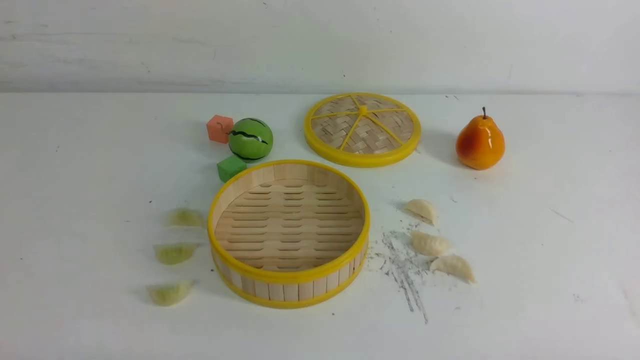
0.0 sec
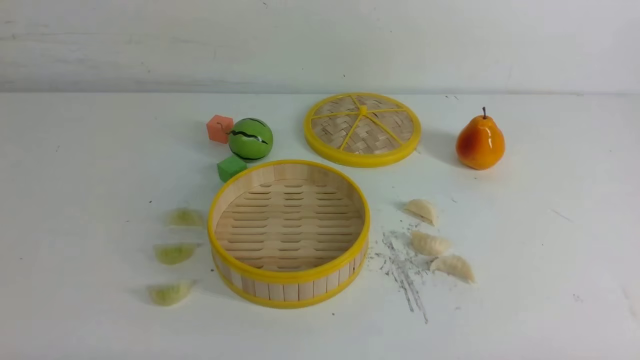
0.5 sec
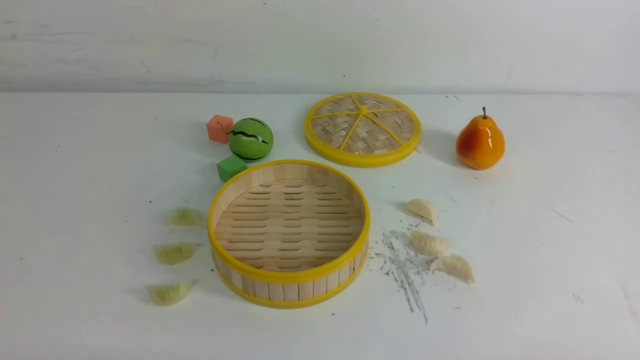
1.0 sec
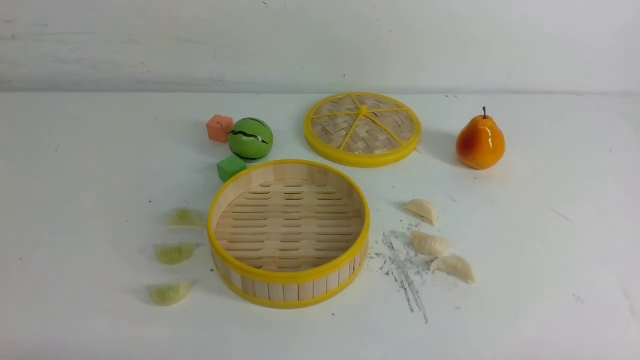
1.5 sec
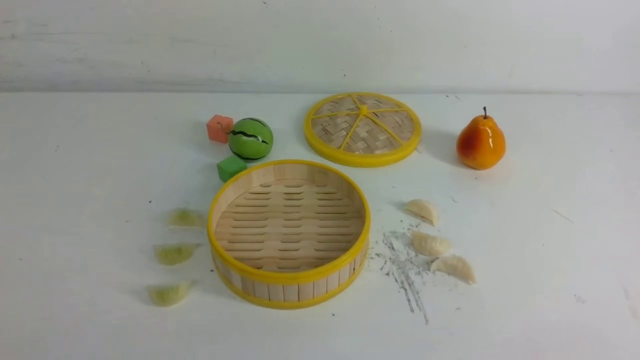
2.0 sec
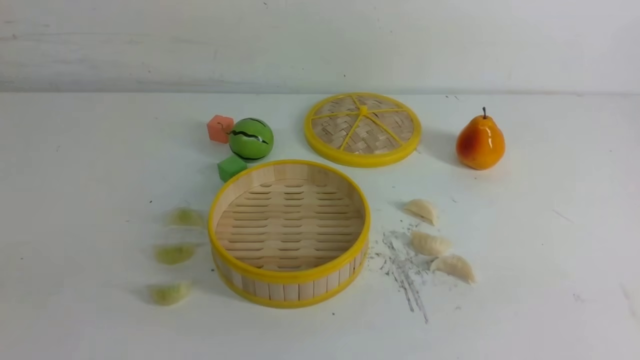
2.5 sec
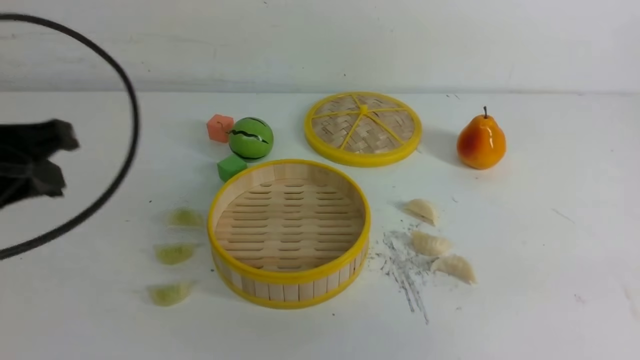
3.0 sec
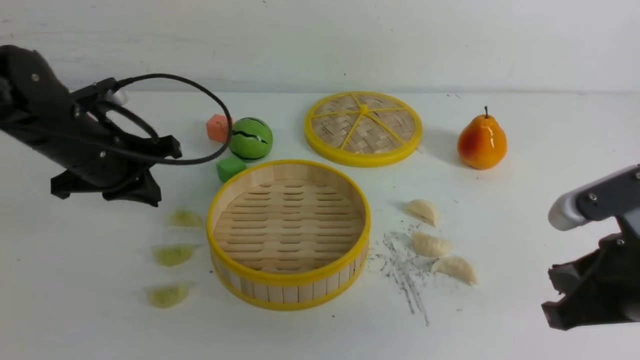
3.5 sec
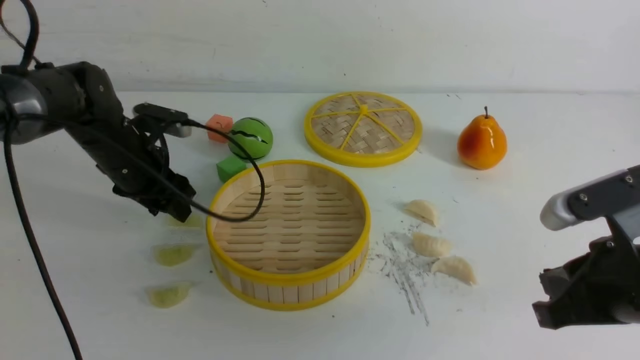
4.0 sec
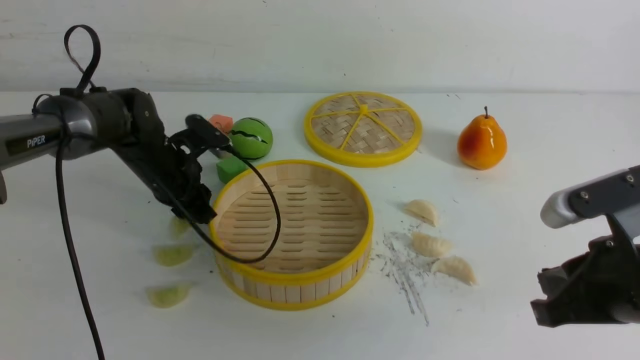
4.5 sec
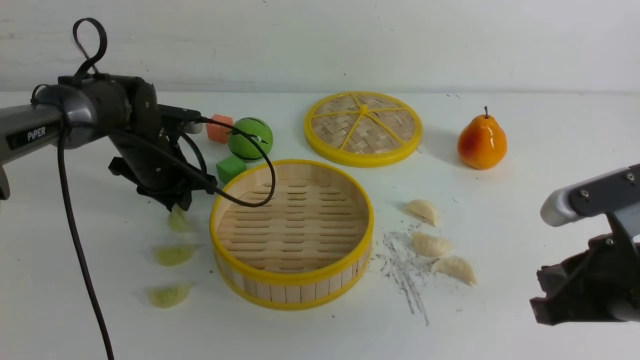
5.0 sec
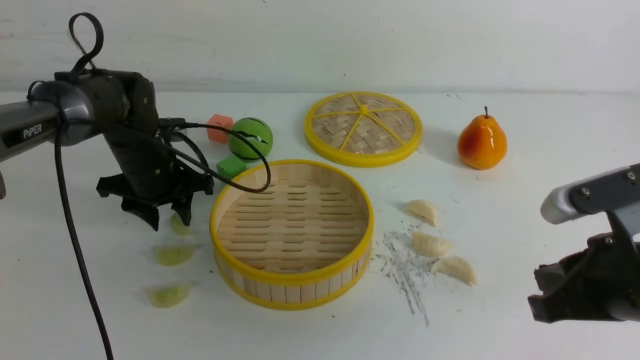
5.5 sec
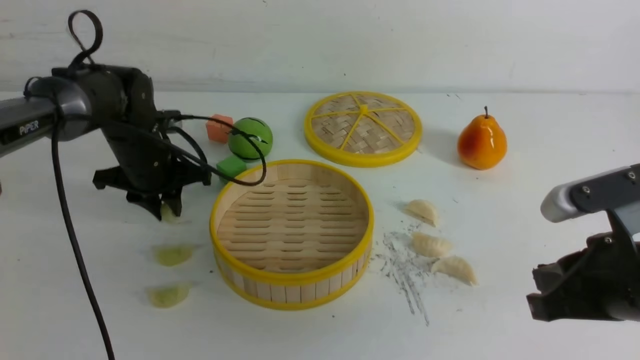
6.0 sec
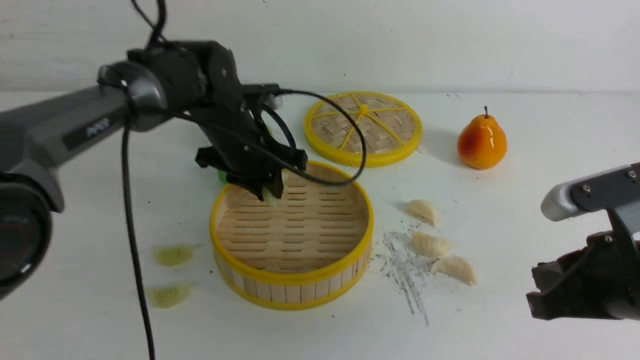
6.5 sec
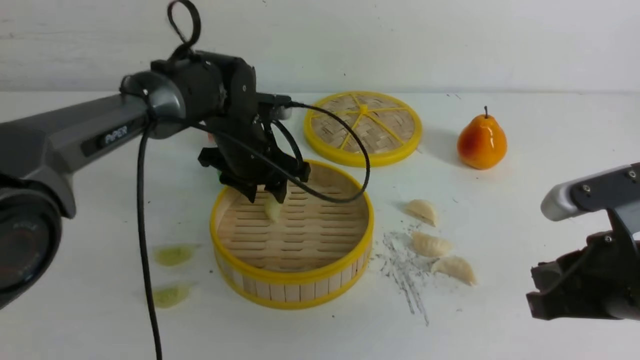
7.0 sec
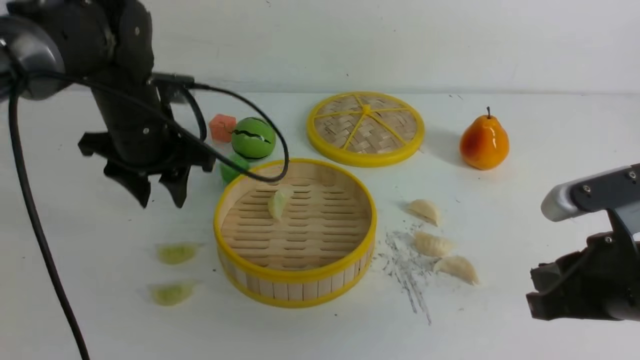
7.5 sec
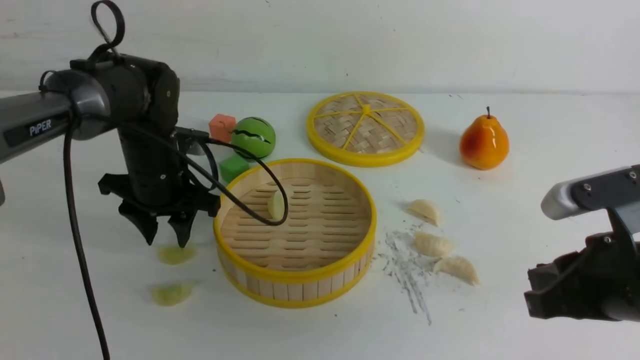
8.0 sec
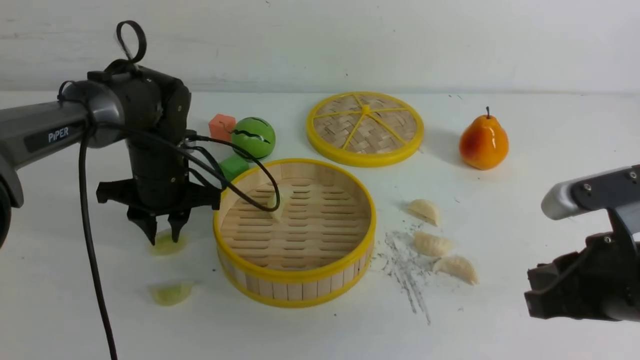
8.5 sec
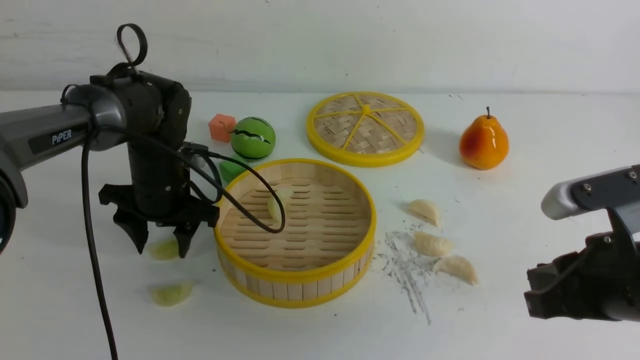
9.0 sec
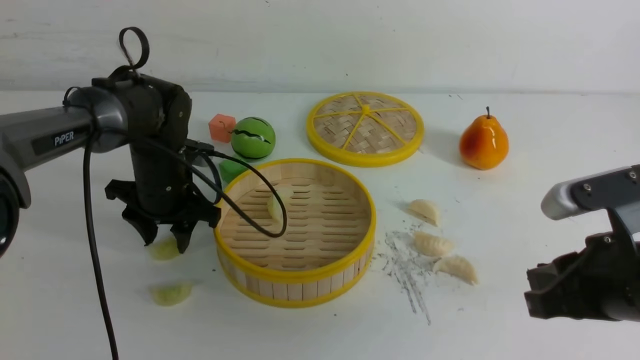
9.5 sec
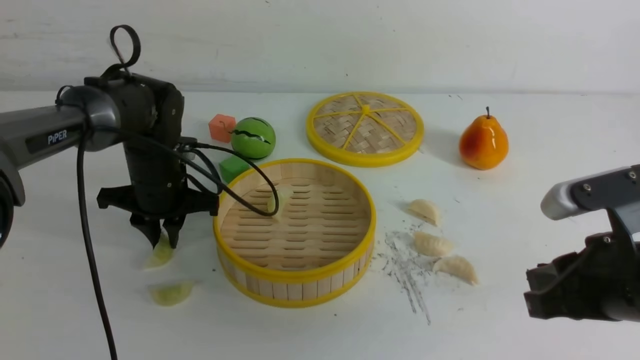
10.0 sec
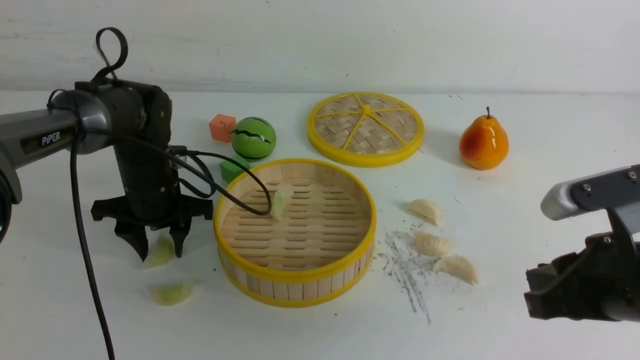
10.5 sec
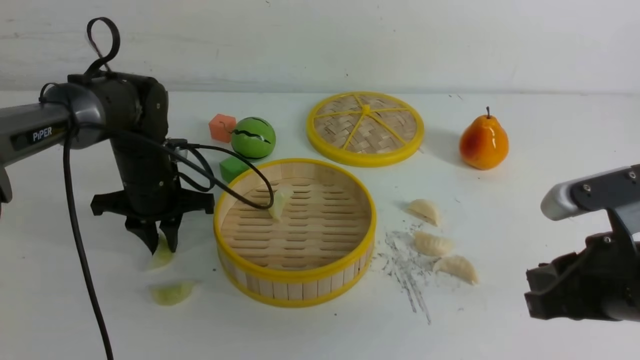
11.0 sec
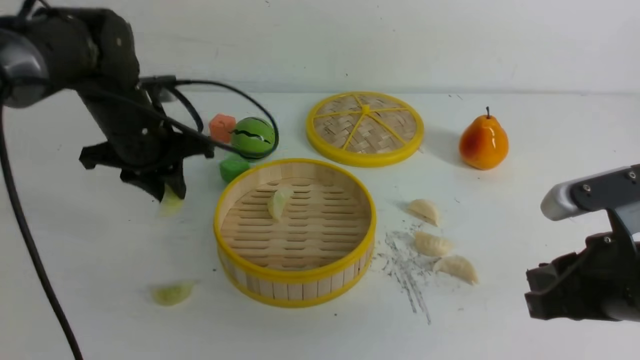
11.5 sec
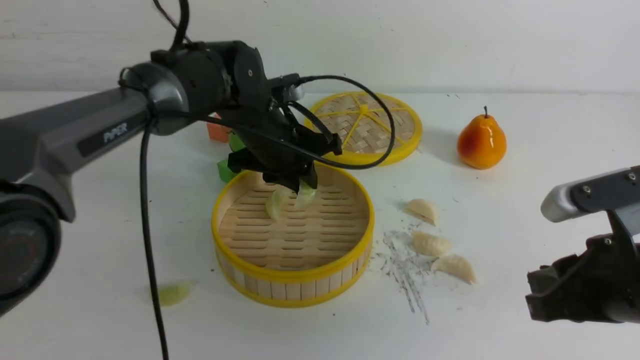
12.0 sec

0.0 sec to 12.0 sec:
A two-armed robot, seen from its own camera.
Task of the whole recording: put the dumplings into the steamer on the white table.
Step, 0.0 sec to 6.0 sec: use the left arm to grab a dumpling.
Step, 6.5 sec to 7.0 sec: use the left arm to put the dumpling into the steamer.
Step, 7.5 sec to 11.0 sec: use the left arm to grab a dumpling.
2.0 sec to 4.0 sec: The right gripper heads forward and to the left, covering roughly 15 cm, while the left gripper goes approximately 40 cm forward, and opens up.
4.0 sec to 6.0 sec: The left gripper closes up.
6.0 sec to 8.0 sec: The left gripper moves about 10 cm to the right and comes back, and opens.
8.0 sec to 10.0 sec: The left gripper closes up.
10.0 sec to 12.0 sec: The left gripper is displaced to the right and upward by about 15 cm, and opens, then closes once more.

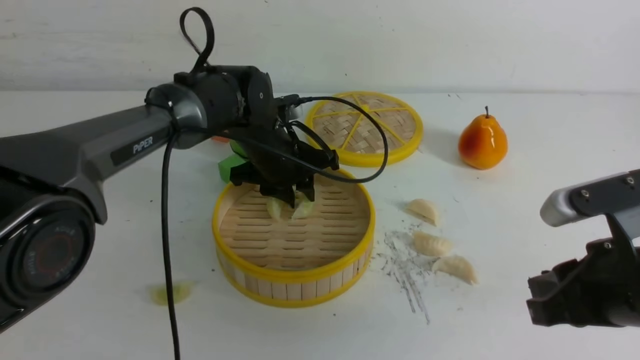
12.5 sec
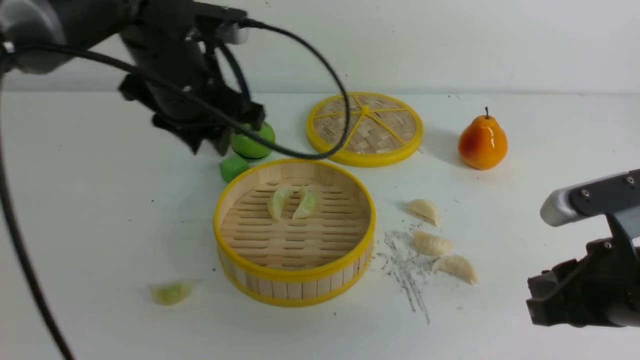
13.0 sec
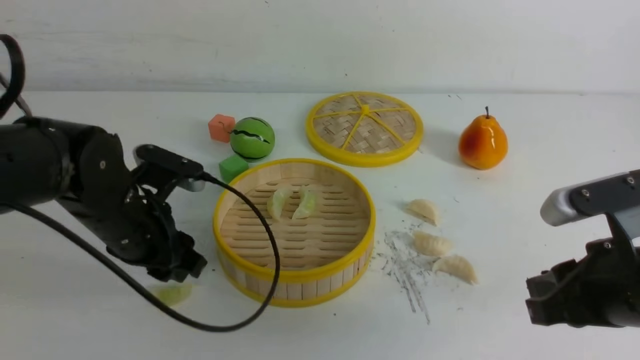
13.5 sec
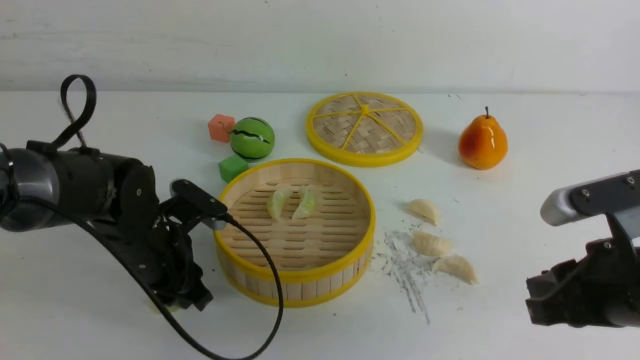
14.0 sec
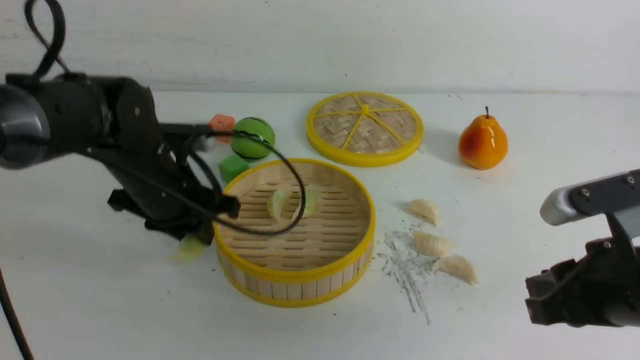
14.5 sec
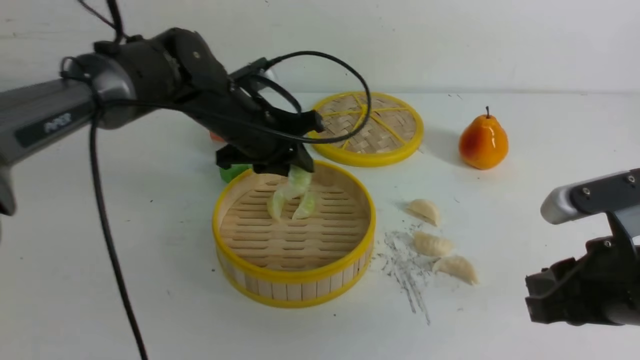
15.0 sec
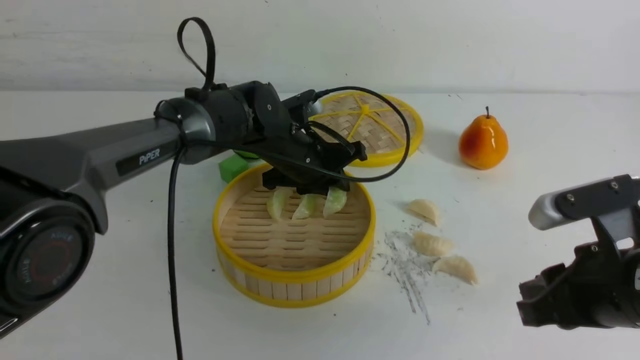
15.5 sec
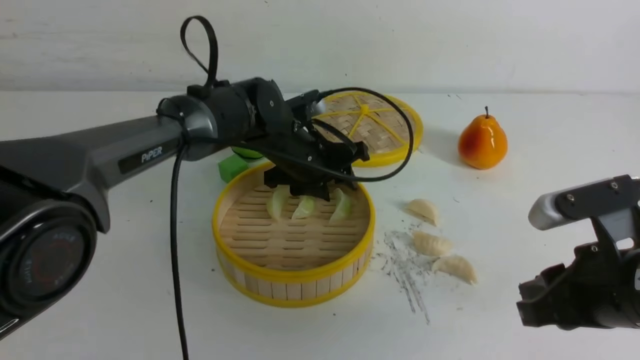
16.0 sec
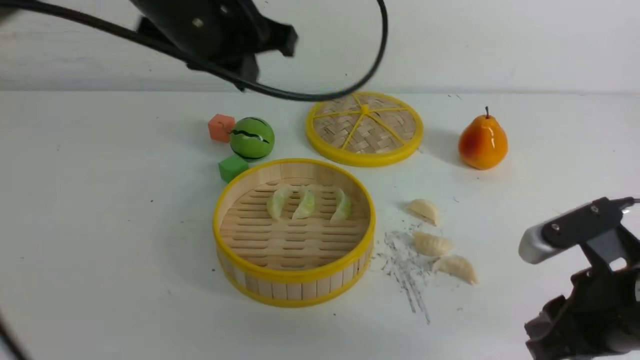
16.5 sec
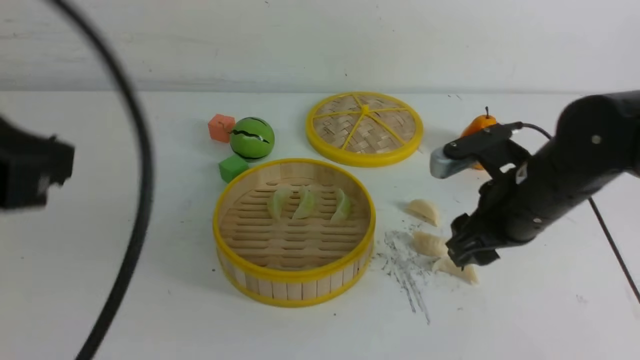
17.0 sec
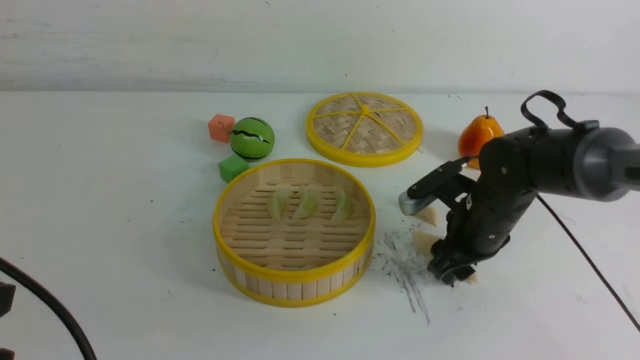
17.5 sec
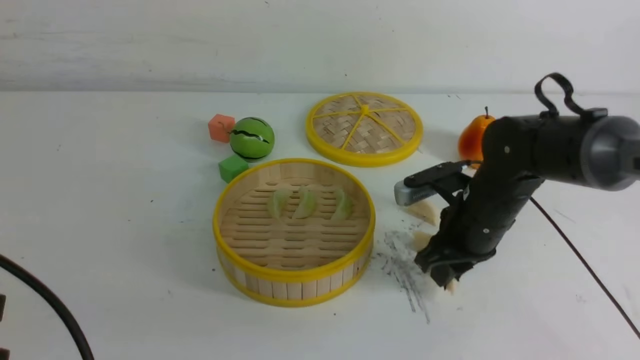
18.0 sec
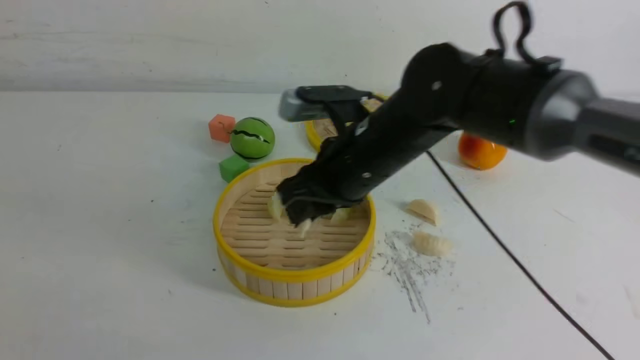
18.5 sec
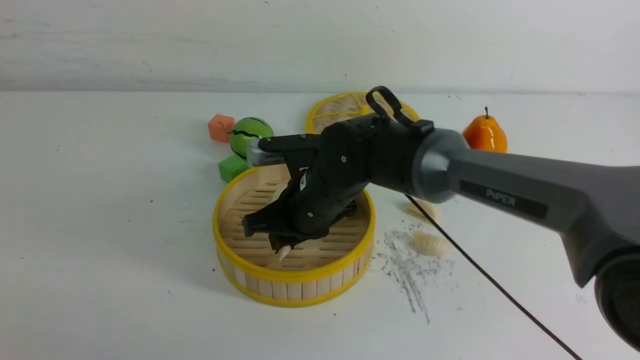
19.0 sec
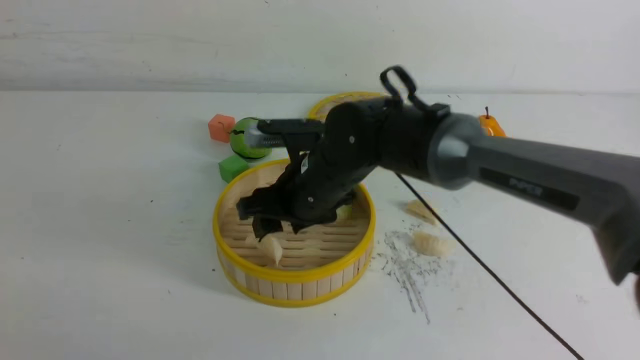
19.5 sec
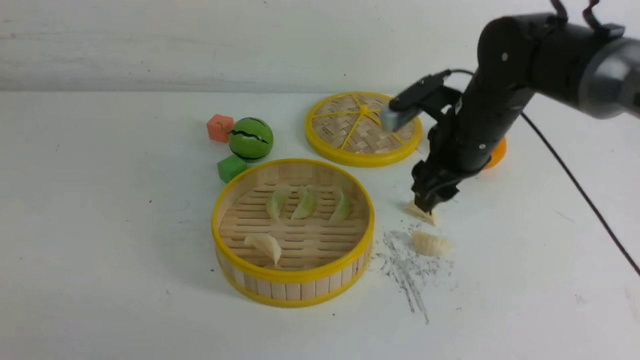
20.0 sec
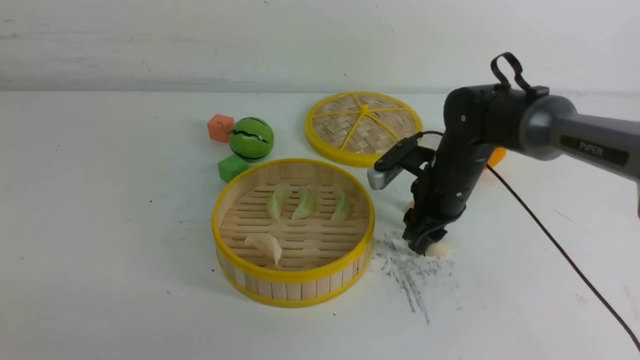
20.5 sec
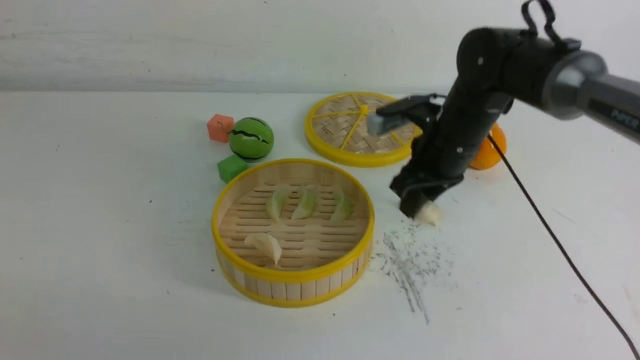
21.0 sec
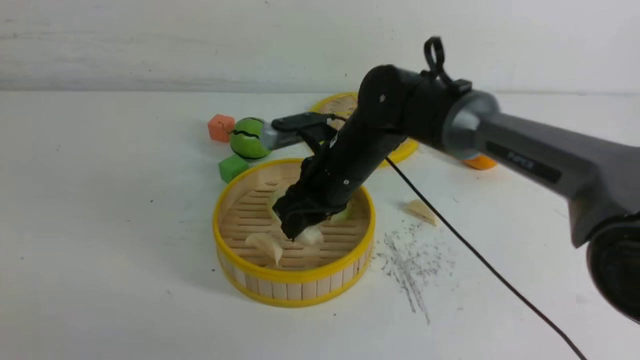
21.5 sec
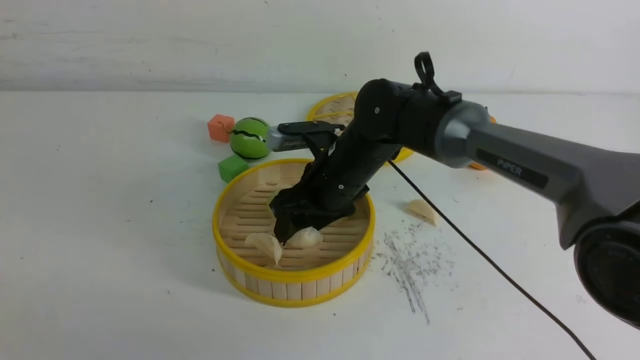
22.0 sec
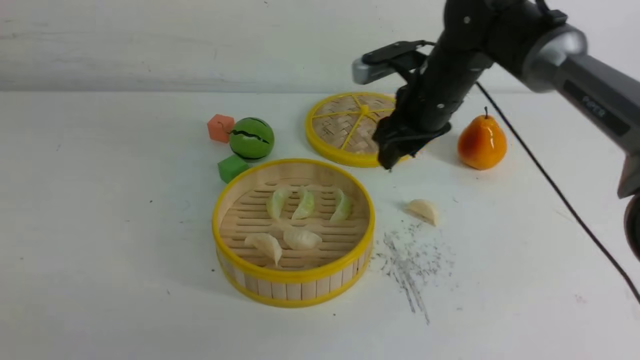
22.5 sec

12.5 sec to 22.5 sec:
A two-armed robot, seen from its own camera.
Task of the whole recording: put the dumplings into the steamer on the white table.
Step, 13.0 sec to 14.0 sec: use the left arm to grab a dumpling.
Step, 14.5 sec to 16.0 sec: use the left arm to put the dumpling into the steamer.
Step, 16.5 sec to 18.0 sec: use the right arm to grab a dumpling.
Step, 18.5 sec to 19.5 sec: use the right arm to put the dumpling into the steamer.
Step, 20.0 sec to 20.5 sec: use the right arm to grab a dumpling.
Step, 21.0 sec to 22.0 sec: use the right arm to put the dumpling into the steamer.
12.5 sec to 14.5 sec: The left gripper swings up and down, roughly 15 cm each way, with 2 reversals.
14.5 sec to 16.5 sec: The left gripper heads upward, covering approximately 20 cm, and opens, then closes again.
16.5 sec to 18.5 sec: The right gripper shifts approximately 25 cm to the left and forward, and opens, then closes once more. Meanwhile the left gripper shifts approximately 35 cm backward, to the left and downward.
18.5 sec to 20.5 sec: The right gripper travels to the right, downward and forward by about 15 cm.
20.5 sec to 22.5 sec: The right gripper shifts roughly 10 cm upward, and moves approximately 10 cm to the left and comes back.
